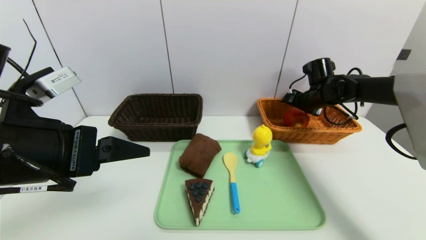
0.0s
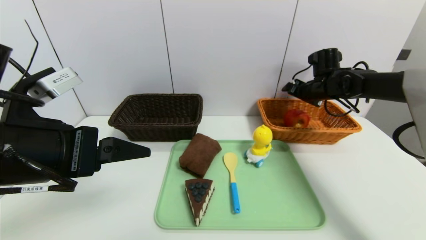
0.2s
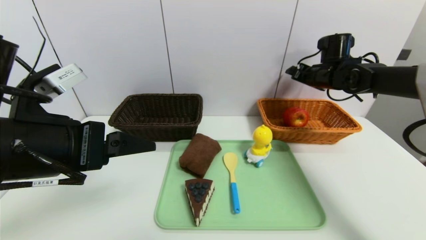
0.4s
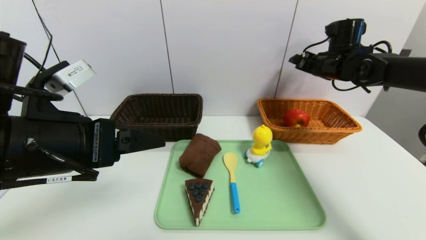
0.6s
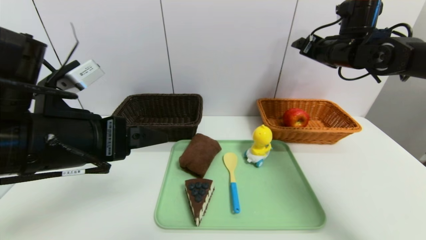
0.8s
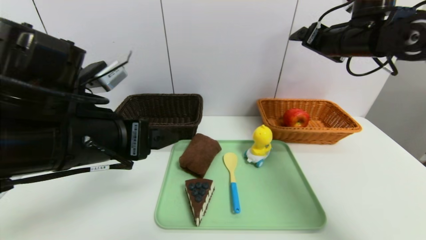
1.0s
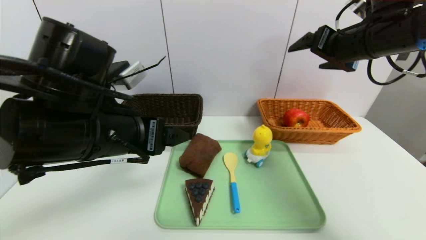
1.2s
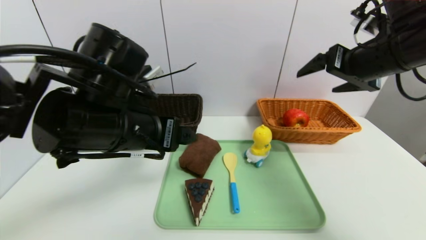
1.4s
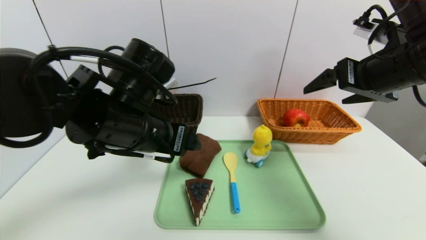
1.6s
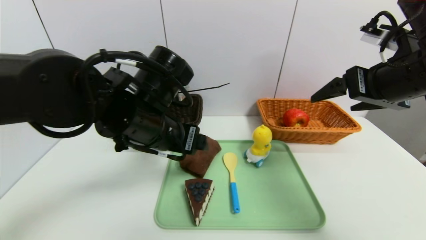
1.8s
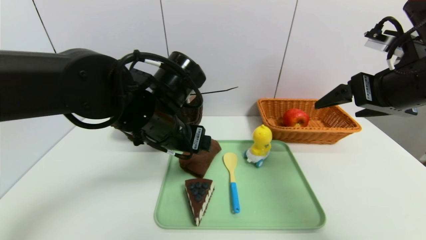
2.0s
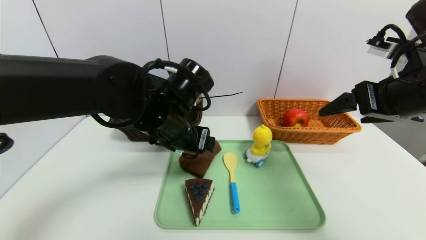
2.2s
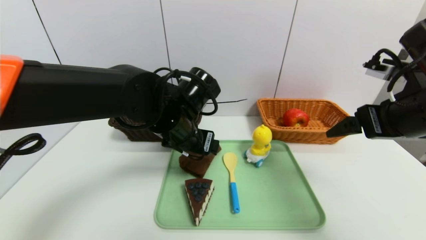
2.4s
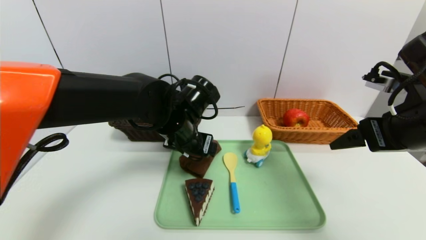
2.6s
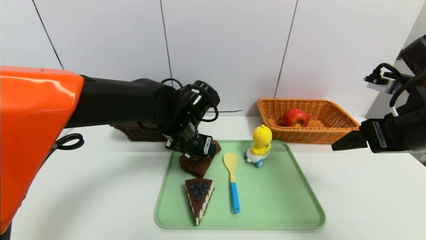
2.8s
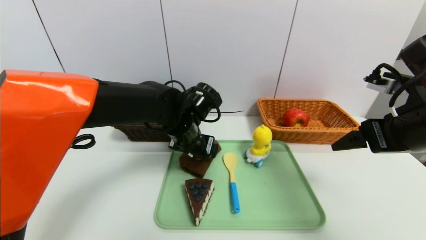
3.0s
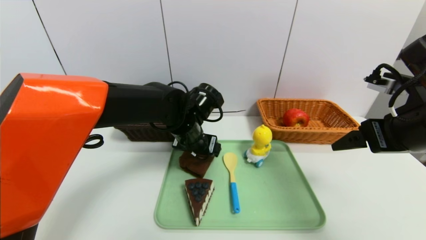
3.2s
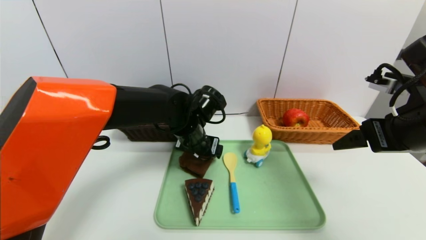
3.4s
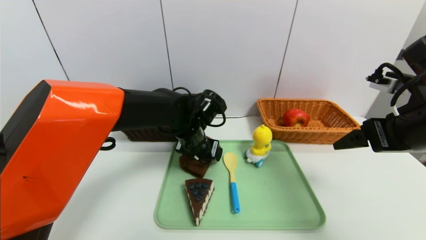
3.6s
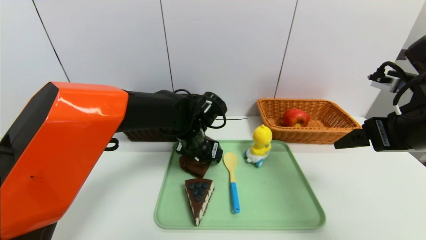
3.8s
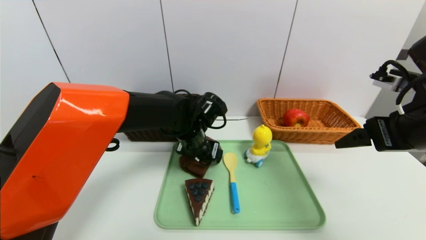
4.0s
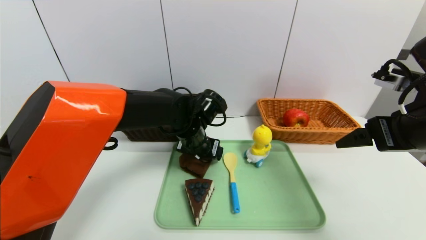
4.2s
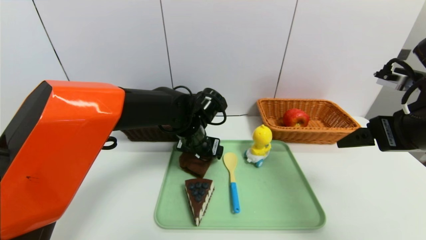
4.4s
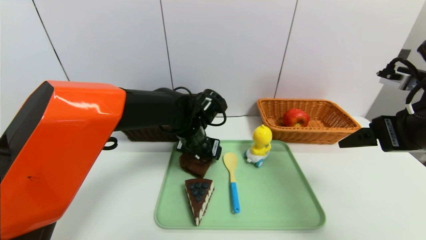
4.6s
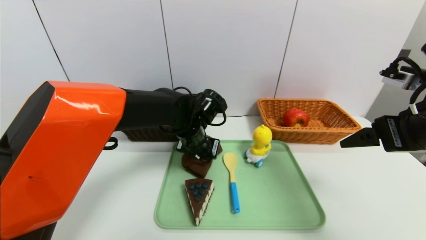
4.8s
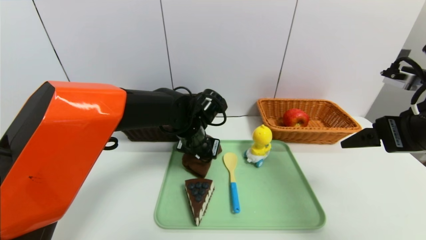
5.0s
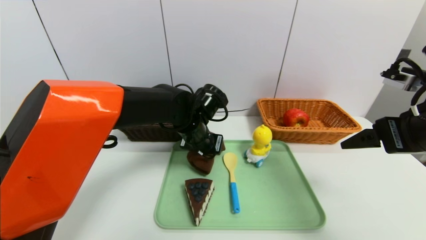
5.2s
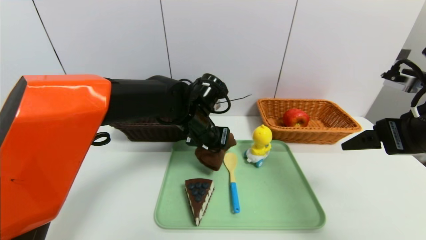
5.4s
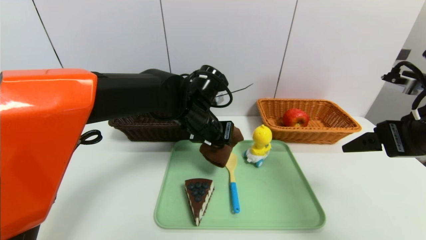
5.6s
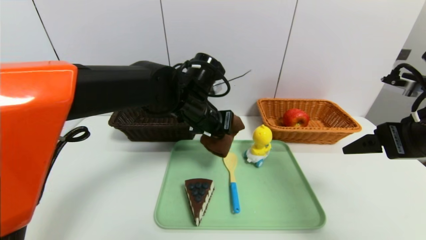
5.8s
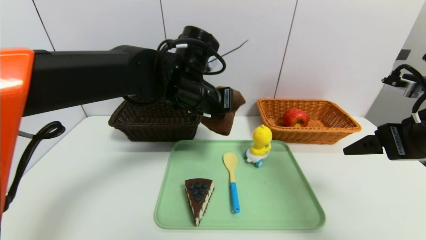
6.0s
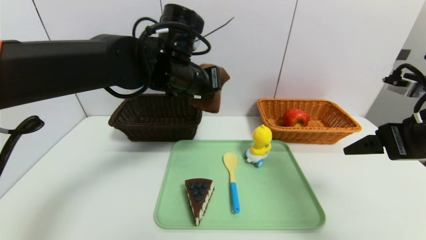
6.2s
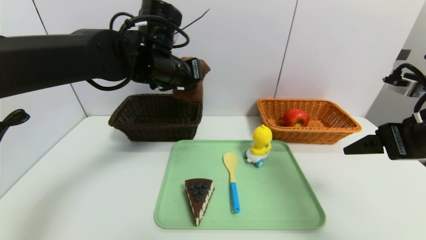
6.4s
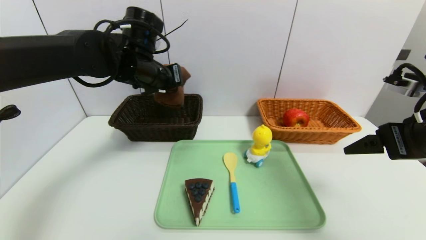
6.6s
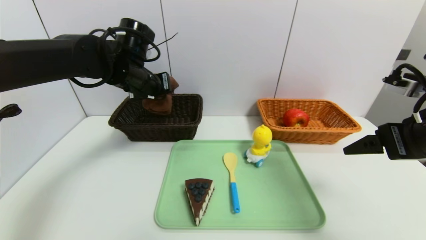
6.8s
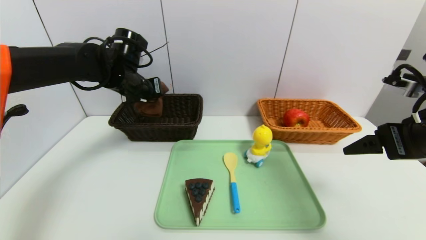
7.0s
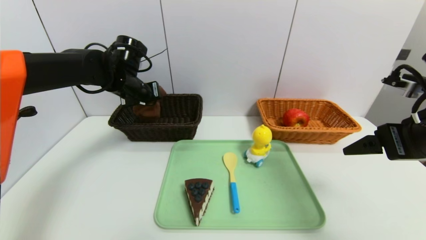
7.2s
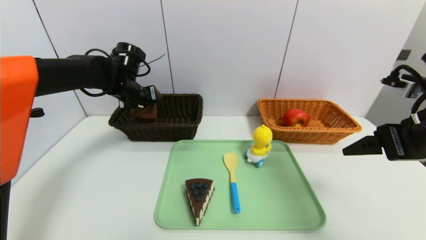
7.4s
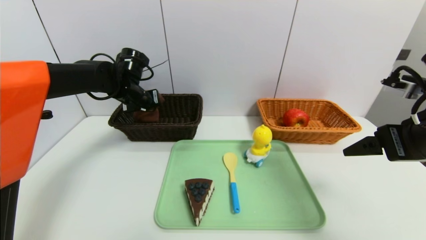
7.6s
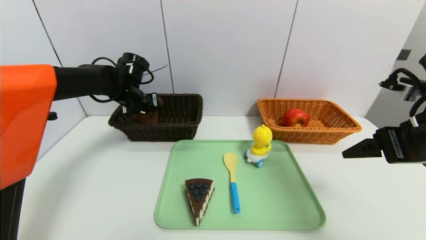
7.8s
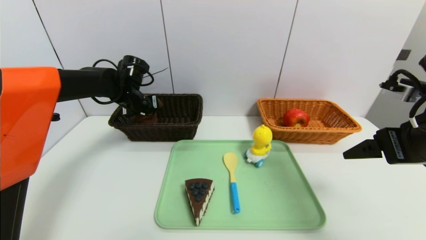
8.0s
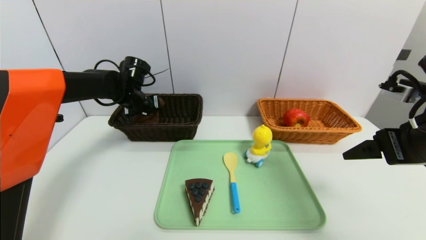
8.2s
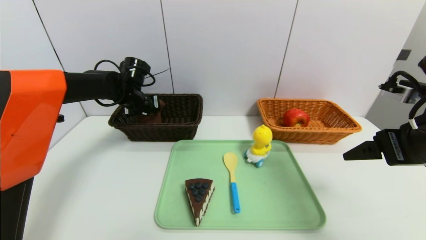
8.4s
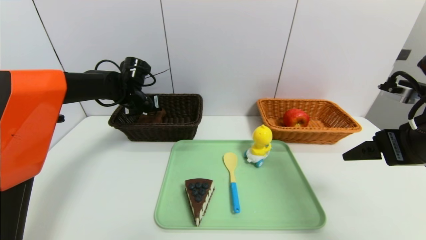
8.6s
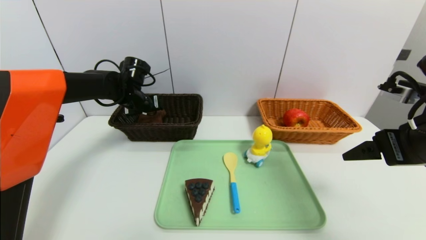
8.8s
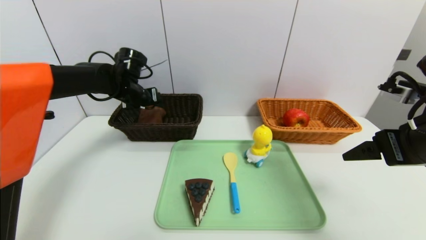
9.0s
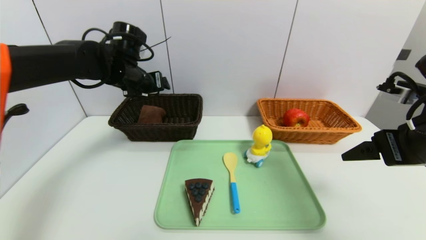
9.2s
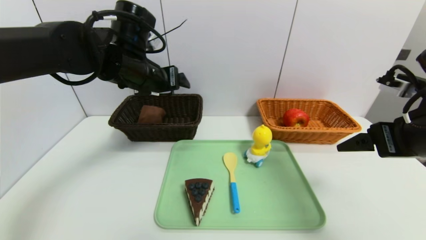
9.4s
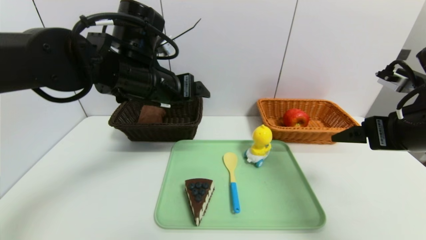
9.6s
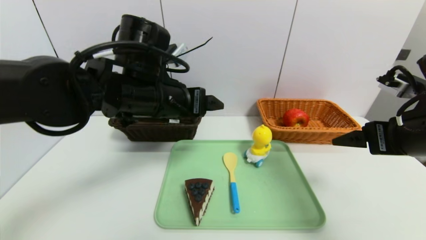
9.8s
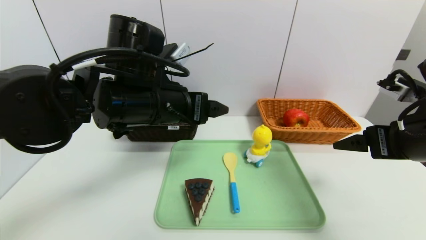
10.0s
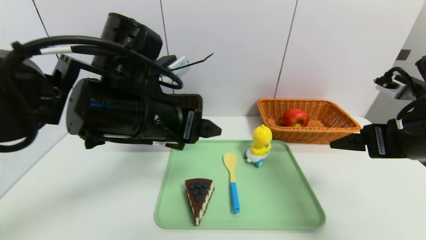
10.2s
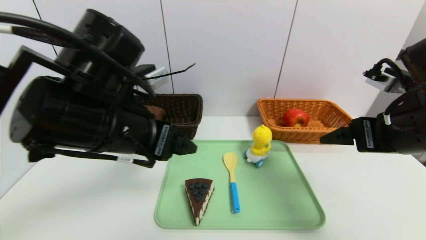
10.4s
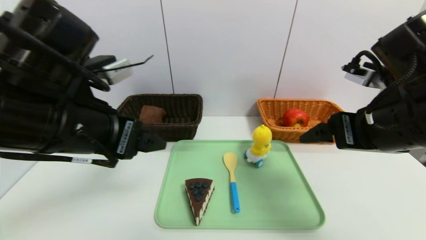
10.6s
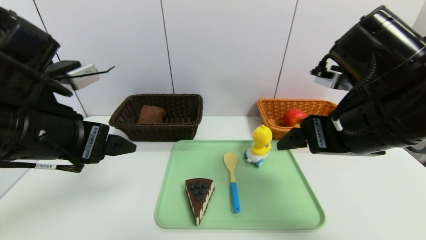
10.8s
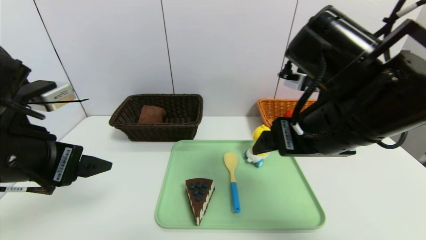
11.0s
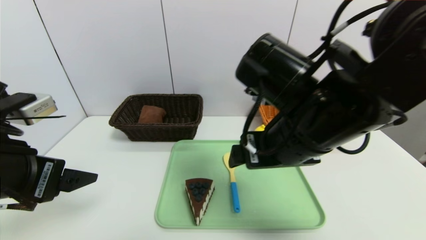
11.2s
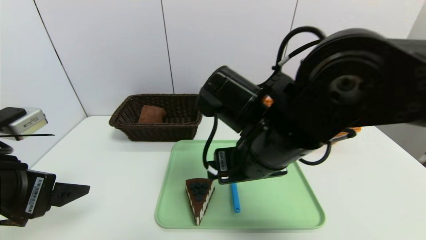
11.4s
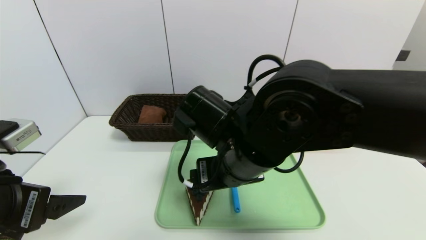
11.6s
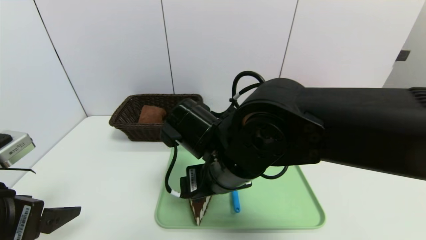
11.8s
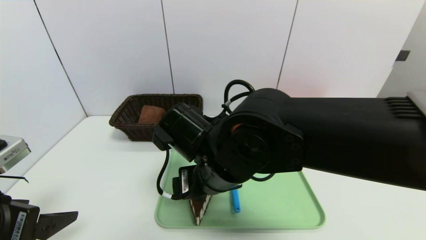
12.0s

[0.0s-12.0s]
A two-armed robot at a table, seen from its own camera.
Task of the whole recording: place the food in the right basket with the right gripper, and place the non food items in the left basket with the left gripper.
Step, 0.4s to 9.0s: Grasp the brown towel and put it in the left basket.
0.0s to 1.6s: The right gripper is displaced backward and upward by some 25 cm. The left gripper is displaced to the right and forward by some 15 cm.
1.6s to 3.0s: The right gripper is displaced downward by approximately 5 cm. Meanwhile the left gripper moves forward, downward and to the right, some 15 cm.
3.0s to 4.4s: The grippers move only a little.
4.4s to 6.0s: The left gripper shifts approximately 10 cm upward, and closes up.
6.0s to 7.6s: The left gripper shifts some 20 cm to the left and forward.
7.6s to 9.0s: The left gripper opens its fingers.
9.0s to 10.4s: The left gripper travels backward by roughly 25 cm.
10.4s to 12.0s: The left gripper goes about 20 cm to the left, backward and downward. Meanwhile the right gripper heads to the left, covering some 25 cm.

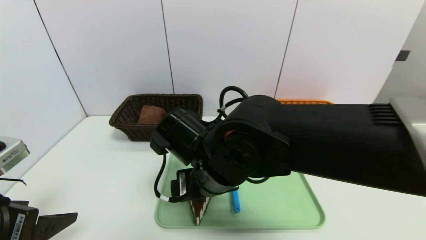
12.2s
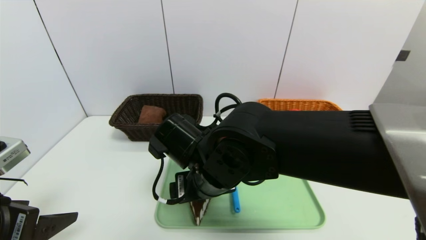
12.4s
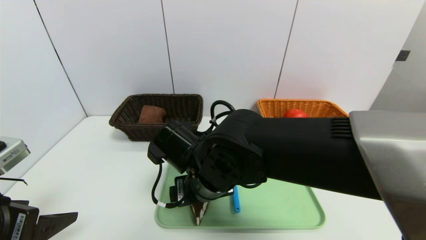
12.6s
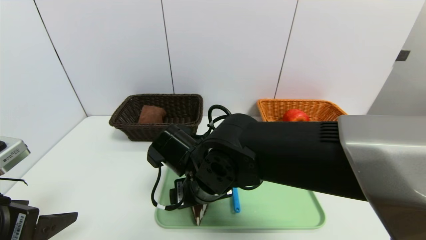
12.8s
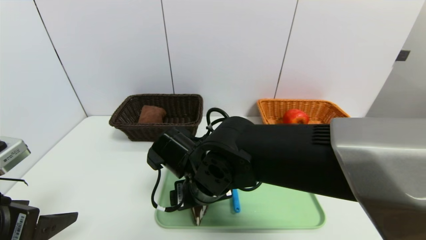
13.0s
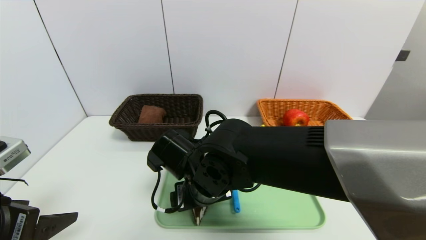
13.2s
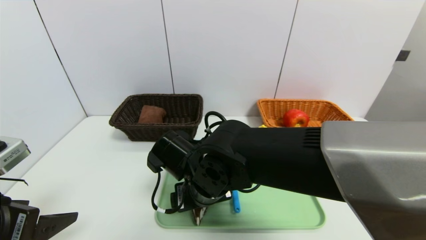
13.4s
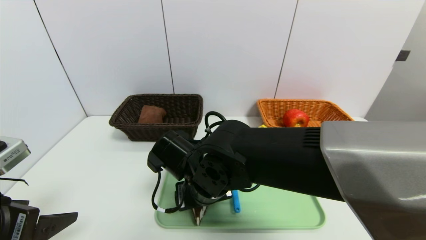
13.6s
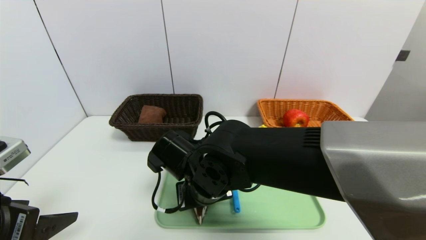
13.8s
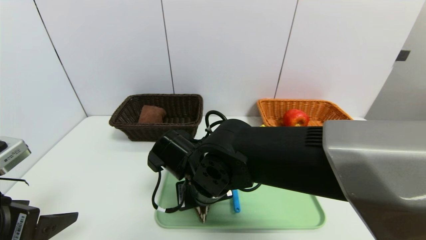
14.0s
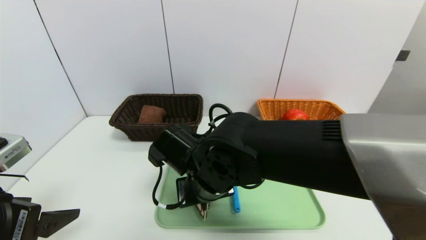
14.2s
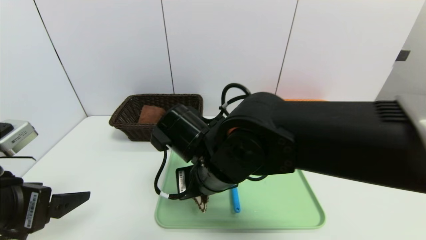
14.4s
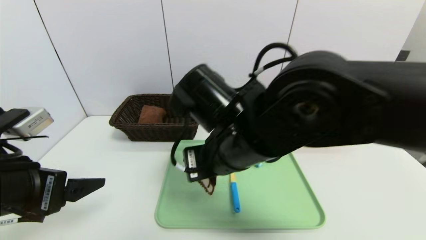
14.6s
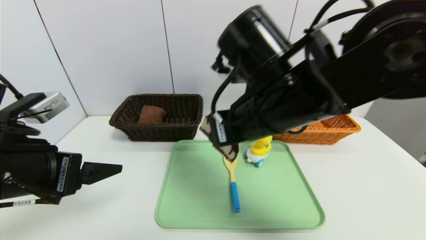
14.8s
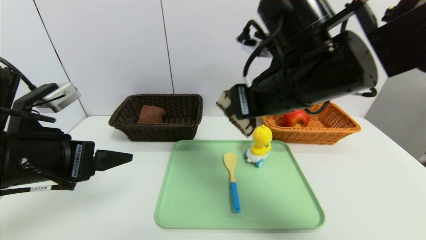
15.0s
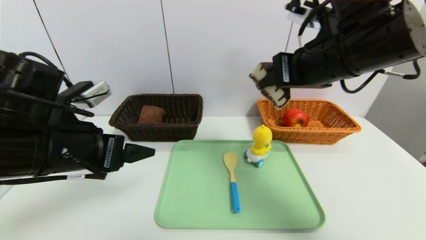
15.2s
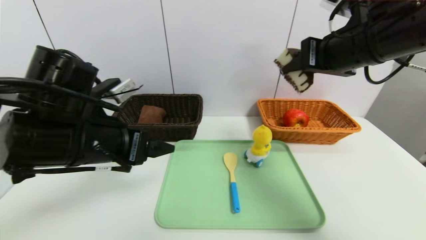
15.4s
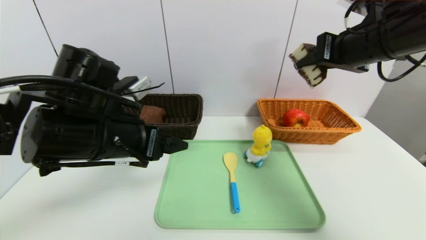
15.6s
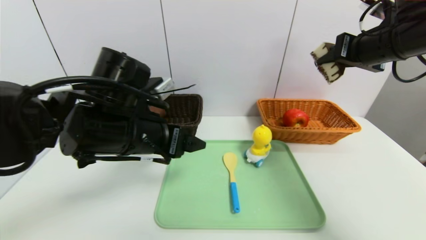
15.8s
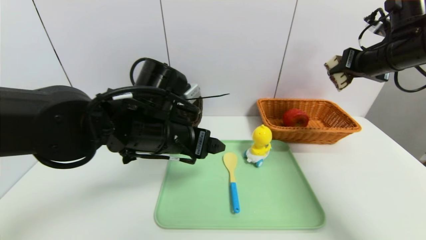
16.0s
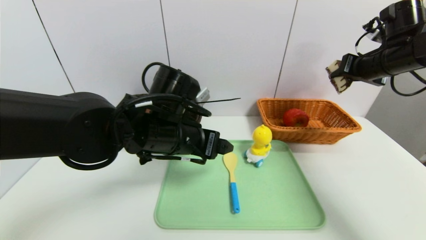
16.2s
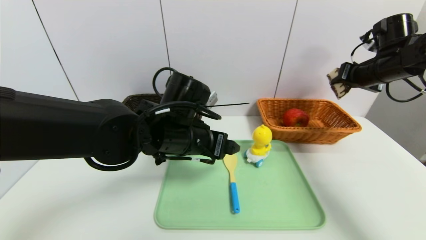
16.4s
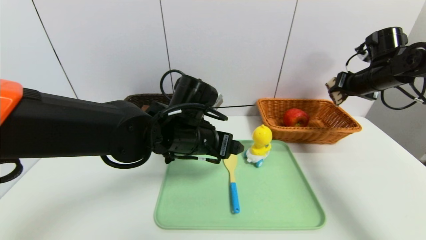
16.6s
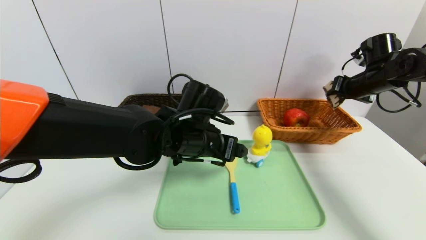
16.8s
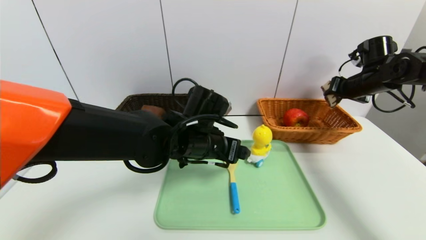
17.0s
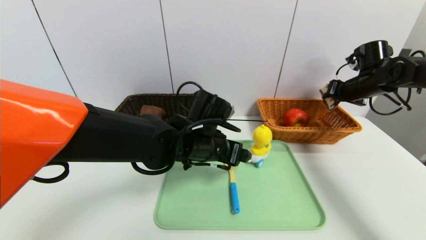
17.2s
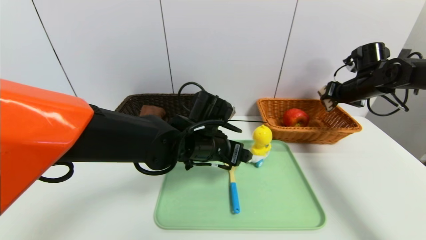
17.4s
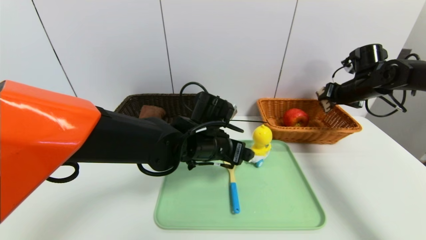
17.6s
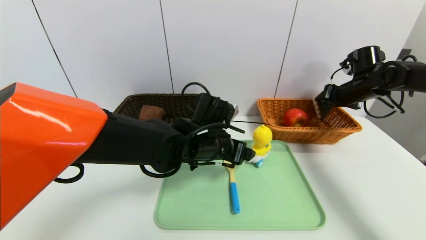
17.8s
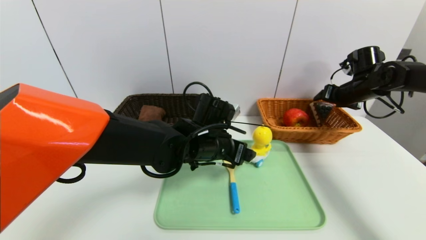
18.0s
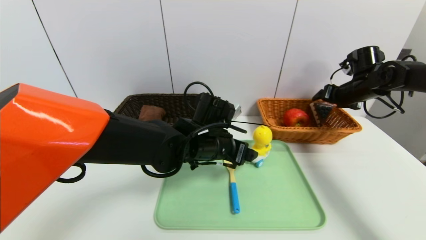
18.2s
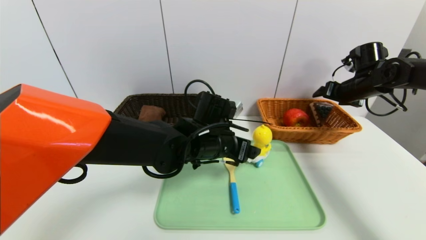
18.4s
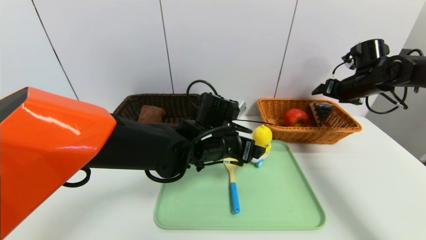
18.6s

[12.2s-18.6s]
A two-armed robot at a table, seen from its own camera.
Task of the whole recording: place the food in the right basket with the right gripper, and place the non food items in the left basket with the left gripper.
12.2s to 13.8s: The right gripper closes.
13.8s to 15.4s: The left gripper moves forward and to the right, some 15 cm; the right gripper moves to the right and upward, some 30 cm, and closes.
15.4s to 17.0s: Both grippers move to the right, forward and downward, approximately 25 cm.
17.0s to 18.6s: The right gripper opens.
